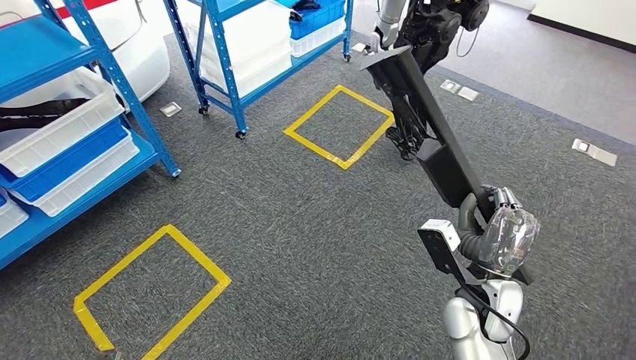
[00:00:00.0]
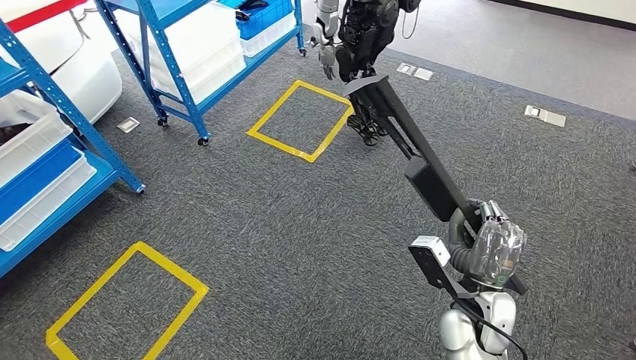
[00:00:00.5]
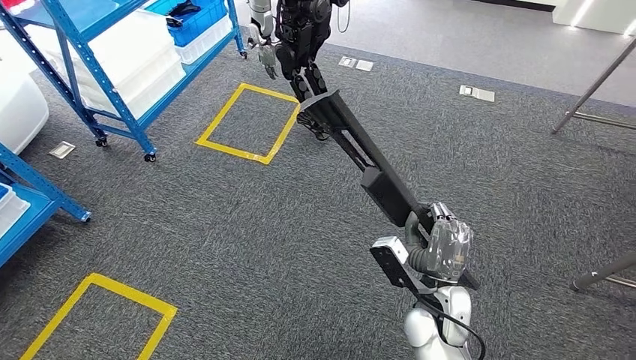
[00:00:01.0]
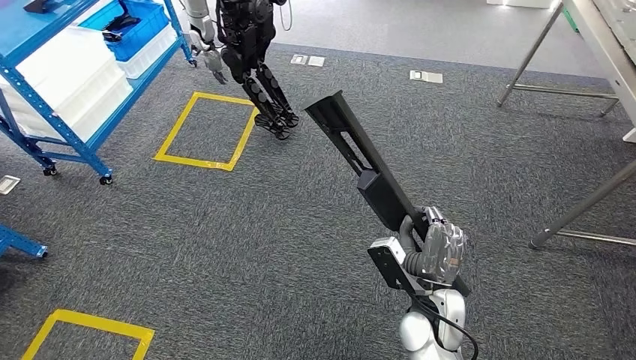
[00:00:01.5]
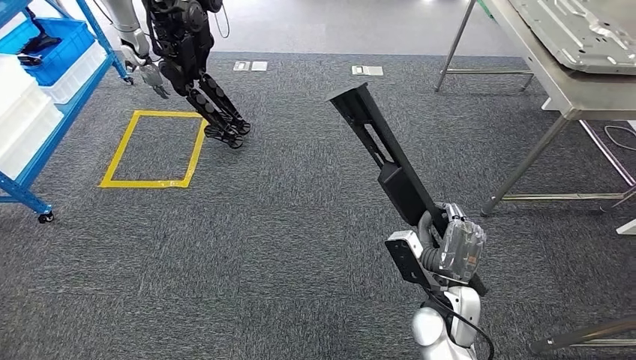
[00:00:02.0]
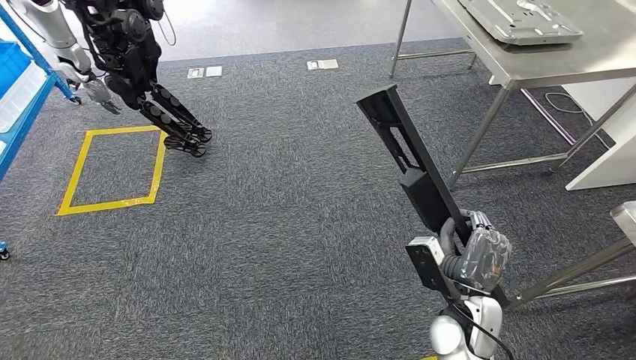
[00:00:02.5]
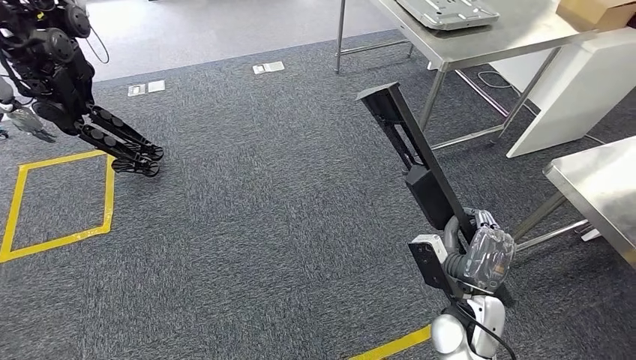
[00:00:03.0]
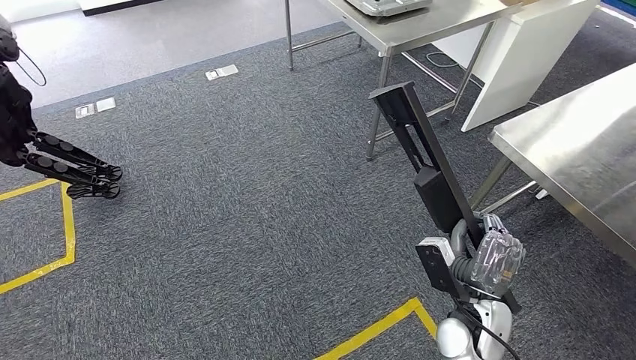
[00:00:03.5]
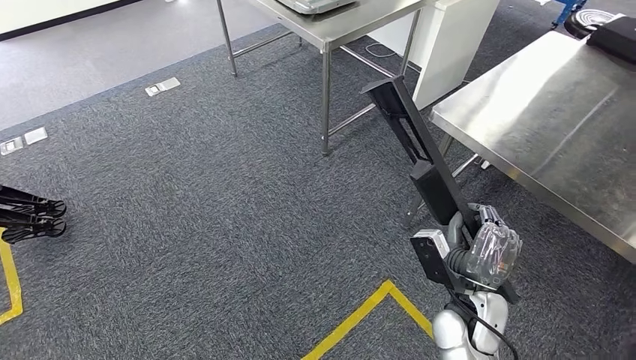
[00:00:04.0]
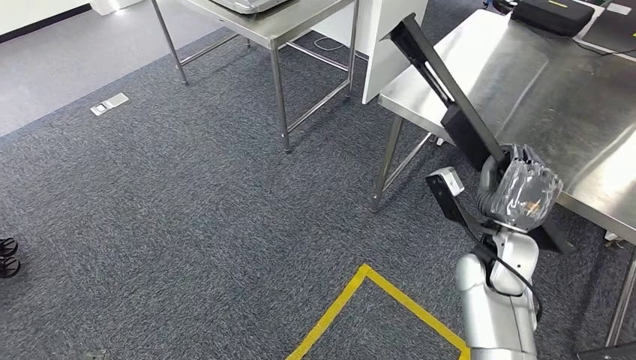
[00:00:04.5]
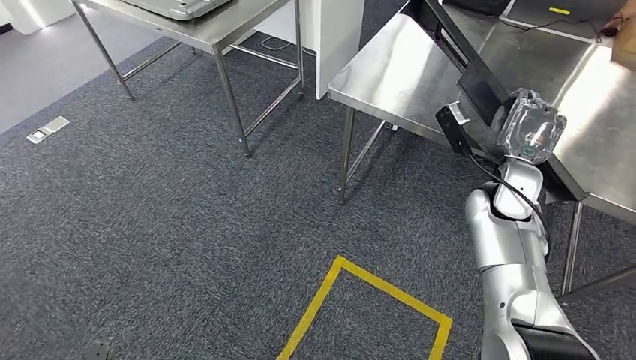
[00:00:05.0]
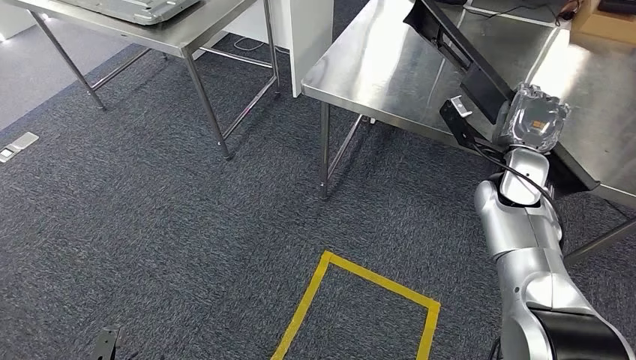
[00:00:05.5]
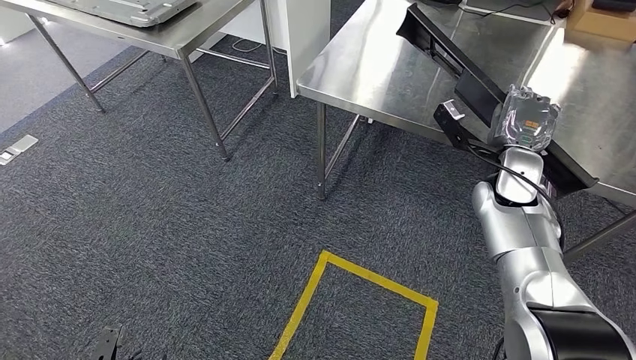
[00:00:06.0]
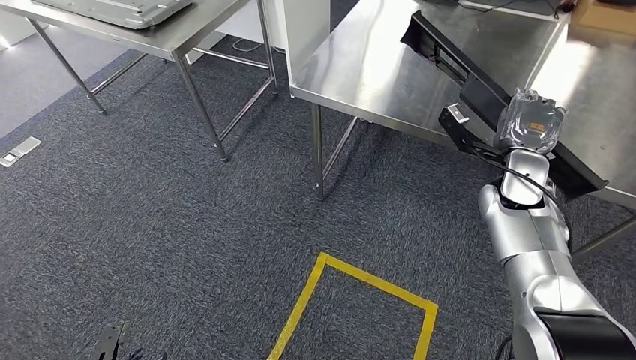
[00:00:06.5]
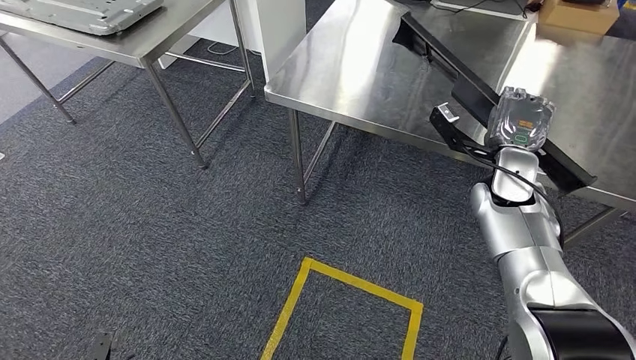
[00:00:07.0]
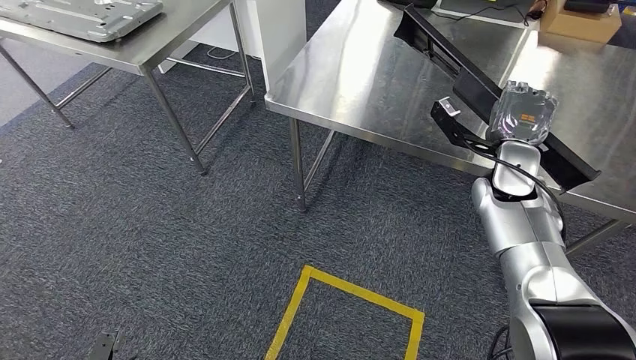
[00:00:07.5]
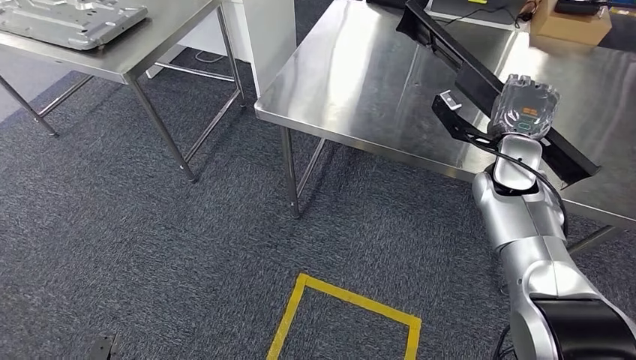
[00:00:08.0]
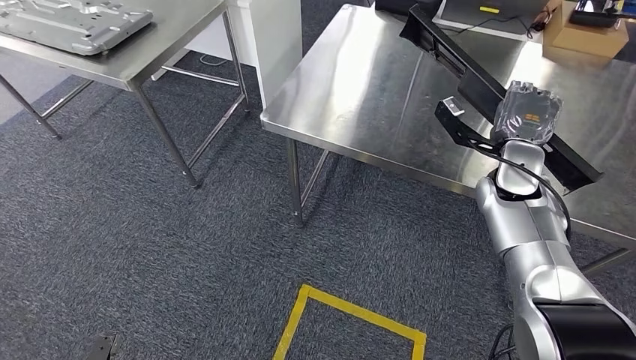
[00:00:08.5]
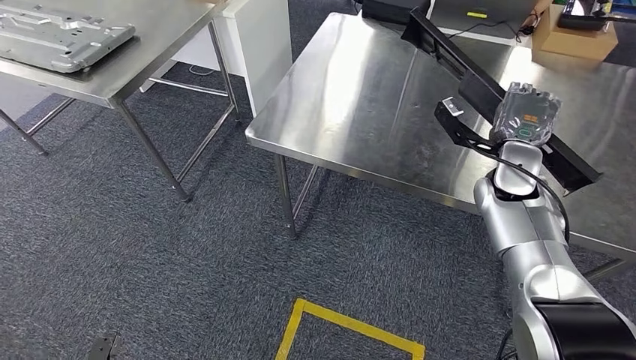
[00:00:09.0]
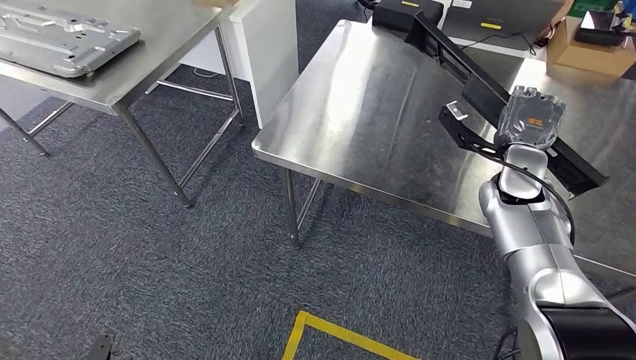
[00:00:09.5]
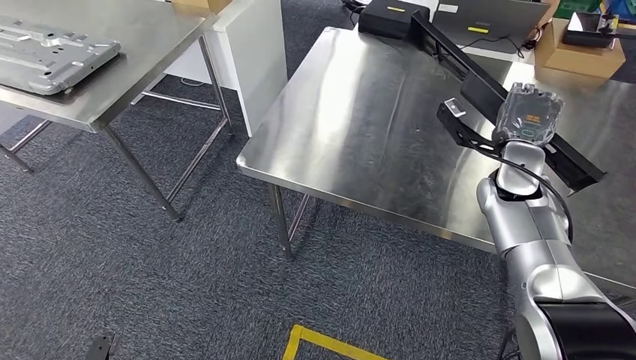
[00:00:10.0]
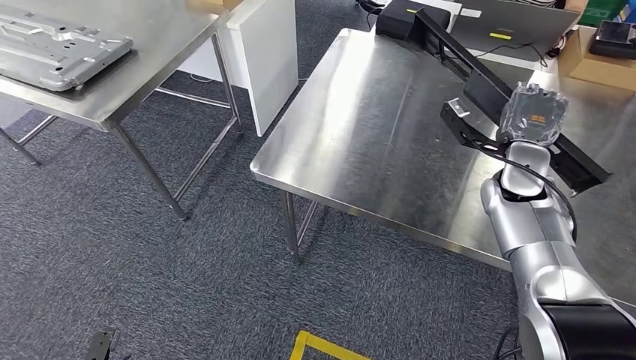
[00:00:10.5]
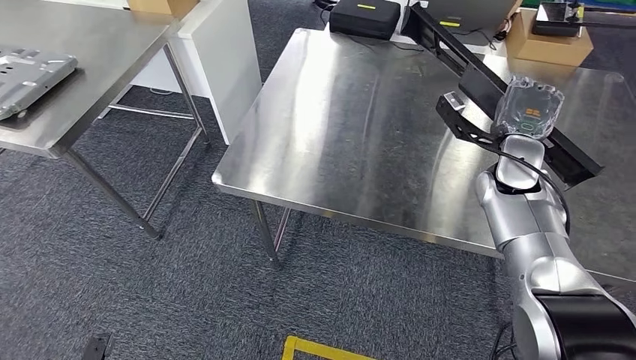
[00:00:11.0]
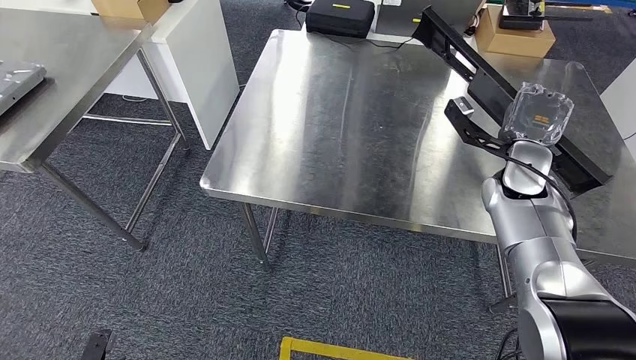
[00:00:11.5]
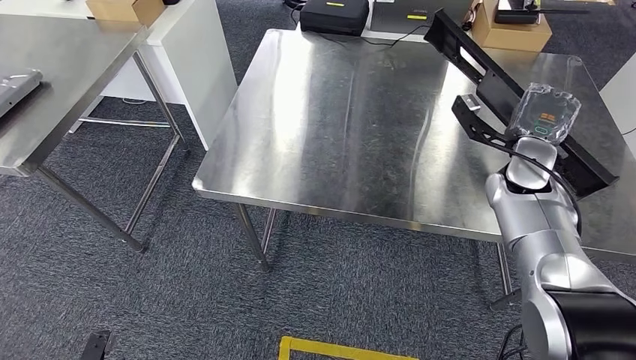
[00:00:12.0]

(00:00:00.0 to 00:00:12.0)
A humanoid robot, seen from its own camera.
Step, 00:00:00.0 - 00:00:08.5: Move the large material to the workbench.

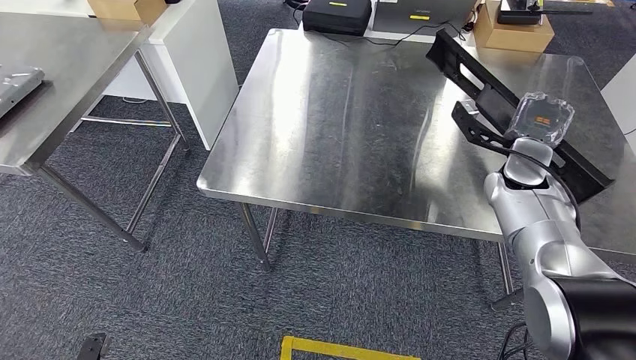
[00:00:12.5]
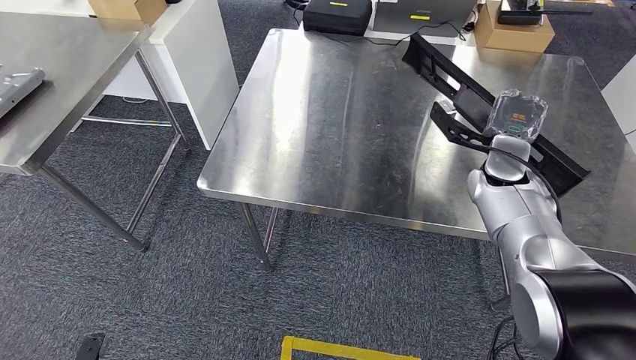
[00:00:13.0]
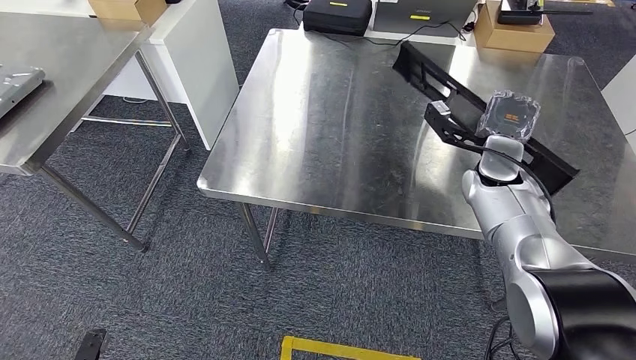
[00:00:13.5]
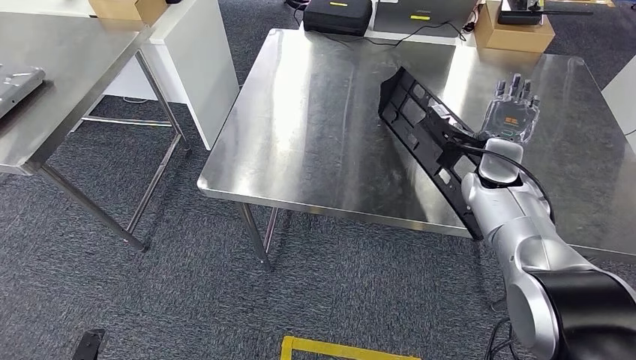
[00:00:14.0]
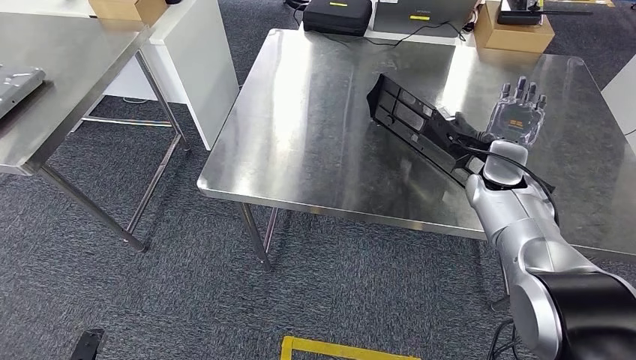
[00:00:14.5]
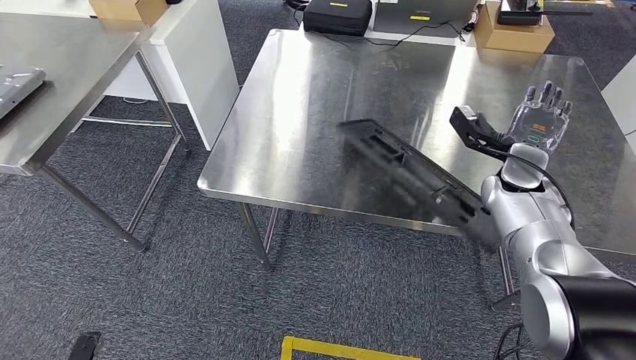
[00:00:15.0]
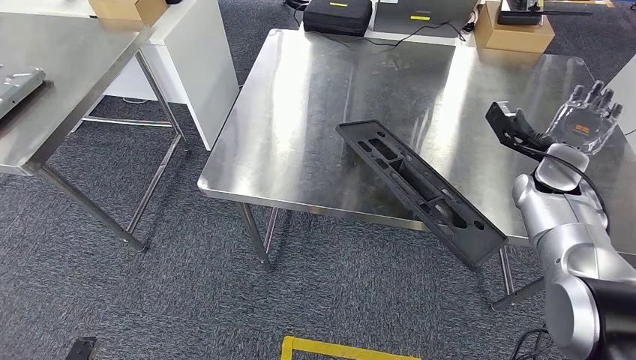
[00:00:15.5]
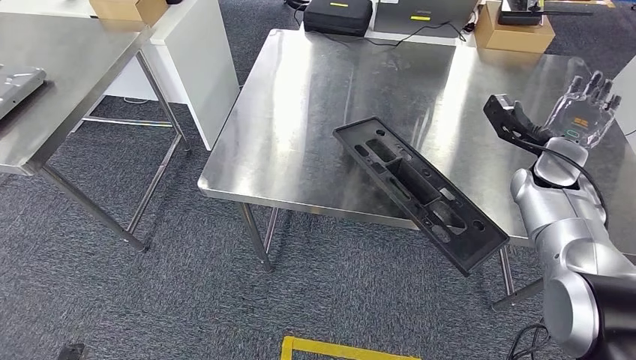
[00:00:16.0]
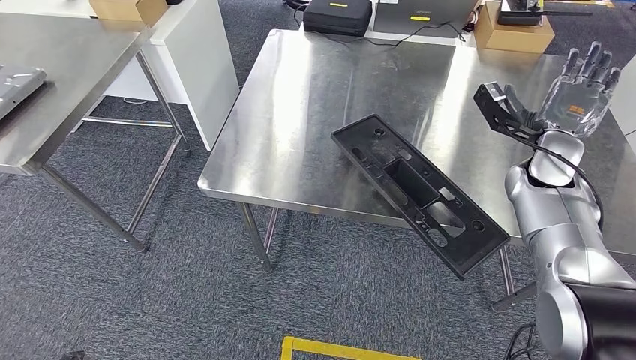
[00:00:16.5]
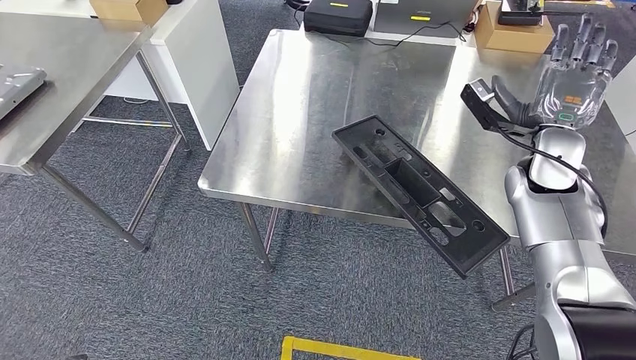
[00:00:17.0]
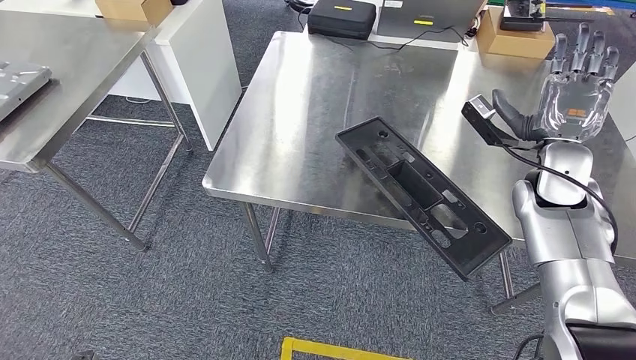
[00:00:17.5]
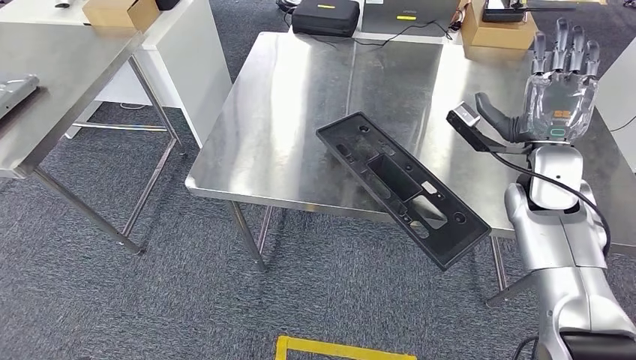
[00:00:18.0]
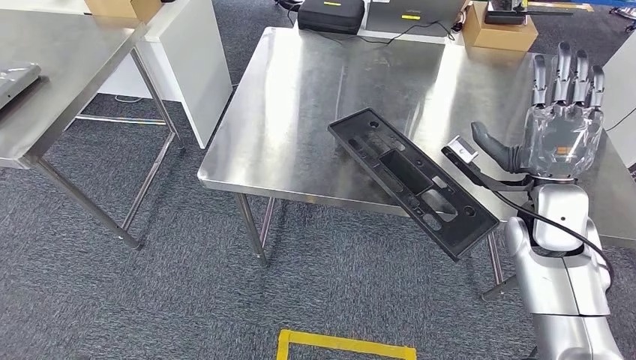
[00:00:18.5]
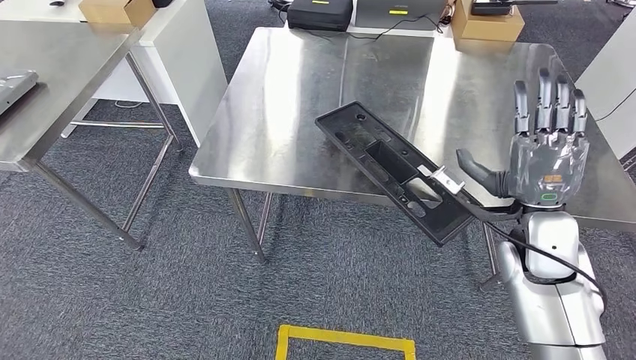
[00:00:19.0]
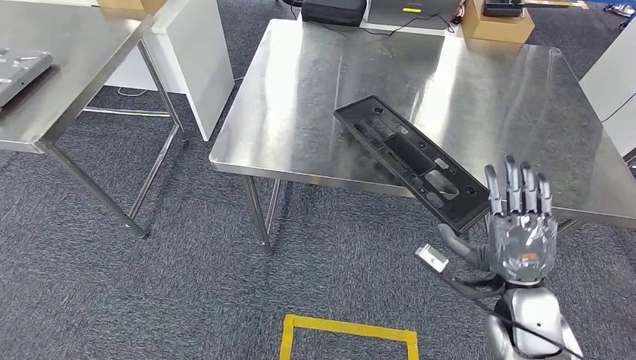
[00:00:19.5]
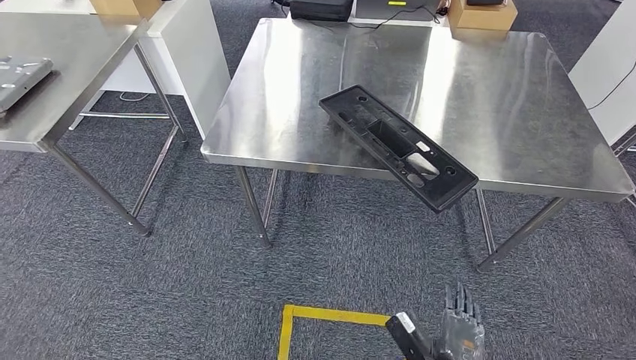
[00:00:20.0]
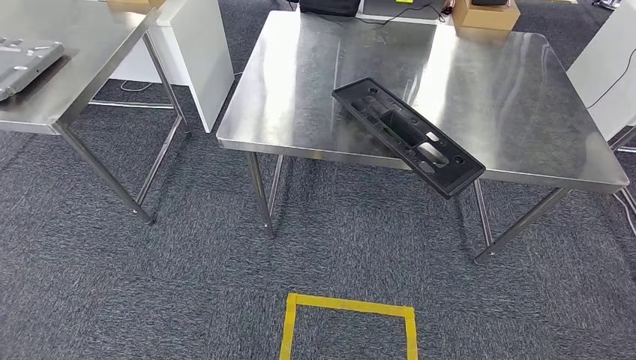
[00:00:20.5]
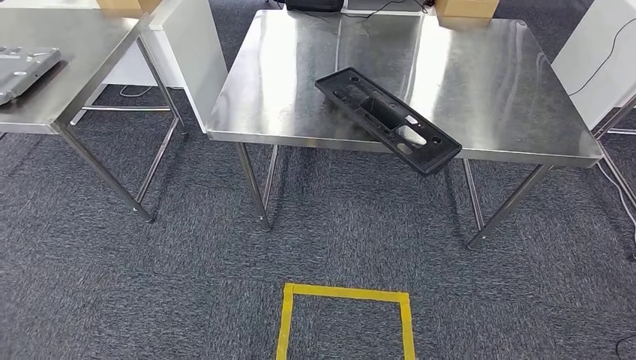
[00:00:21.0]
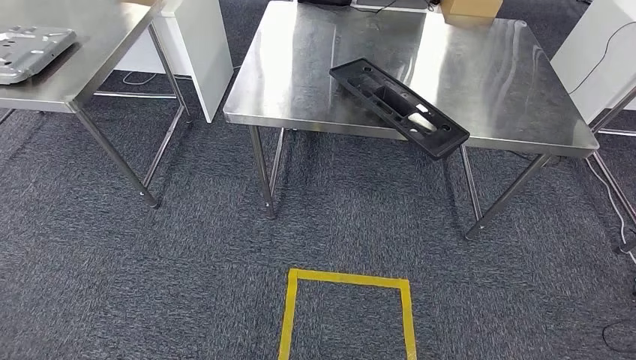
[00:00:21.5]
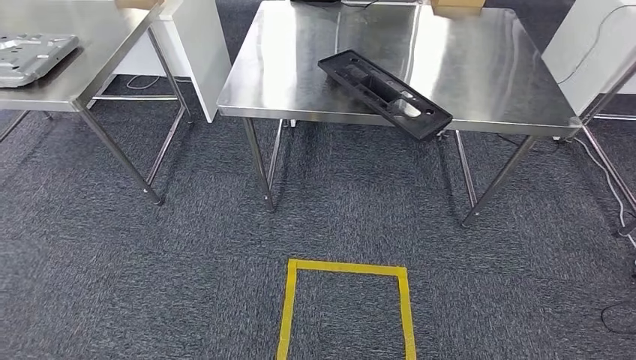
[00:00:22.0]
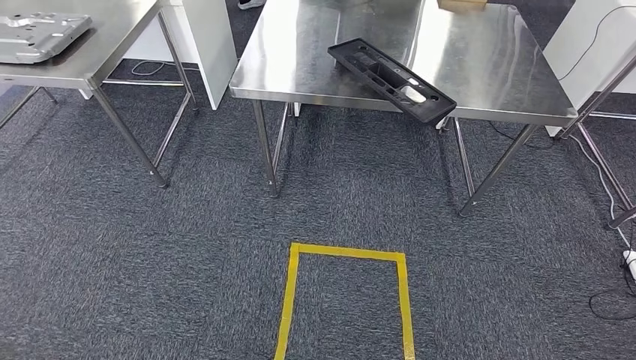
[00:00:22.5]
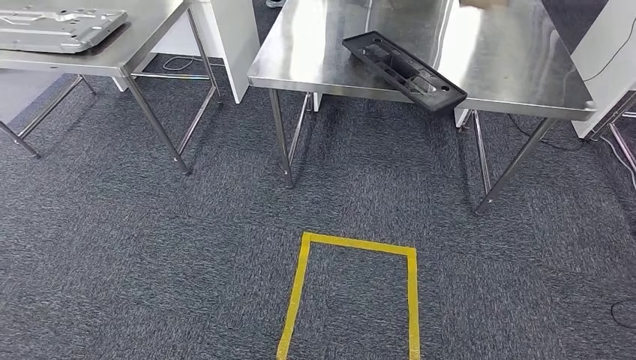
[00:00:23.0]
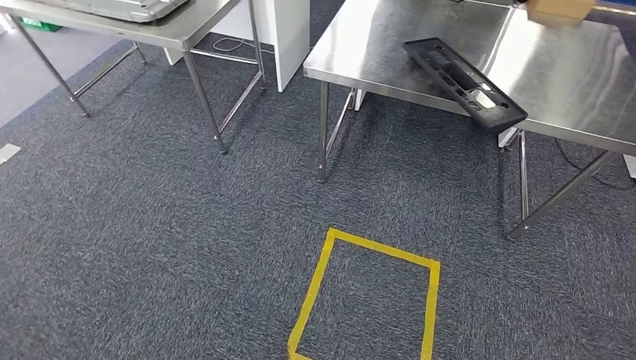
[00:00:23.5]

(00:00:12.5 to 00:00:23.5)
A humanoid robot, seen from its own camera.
Step, 00:00:12.5 - 00:00:14.5: Insert the large material into the corresponding slot on the workbench.
00:00:12.5 - 00:00:14.5: The hands make only small movements.
00:00:14.5 - 00:00:16.0: The right hand travels to the right by about 10 cm.
